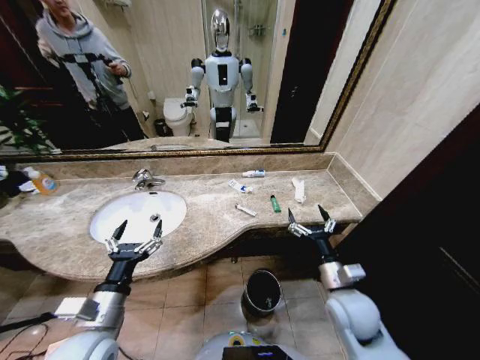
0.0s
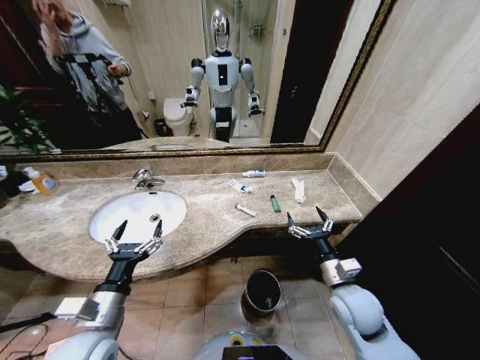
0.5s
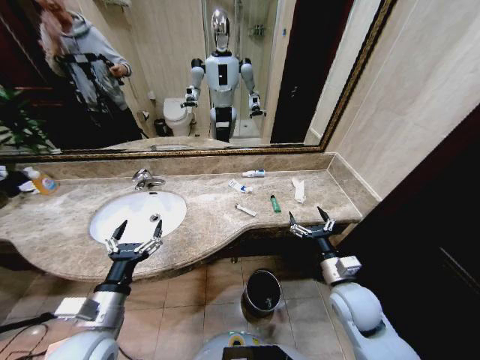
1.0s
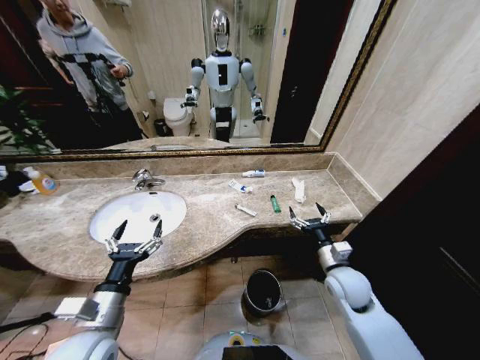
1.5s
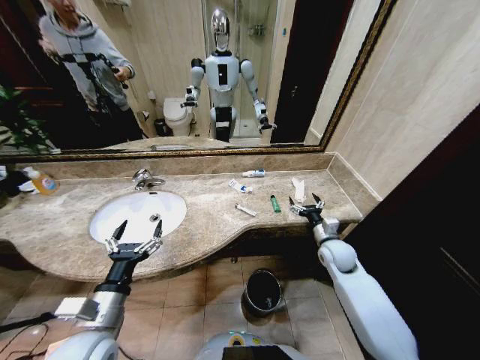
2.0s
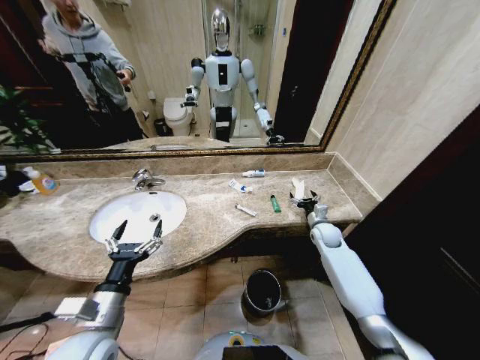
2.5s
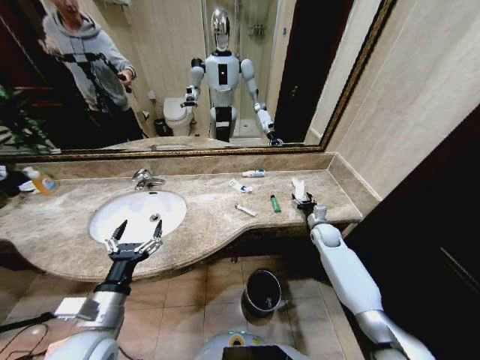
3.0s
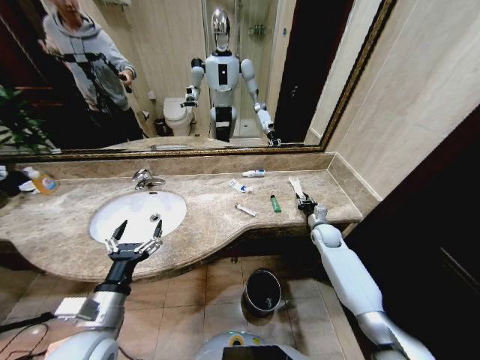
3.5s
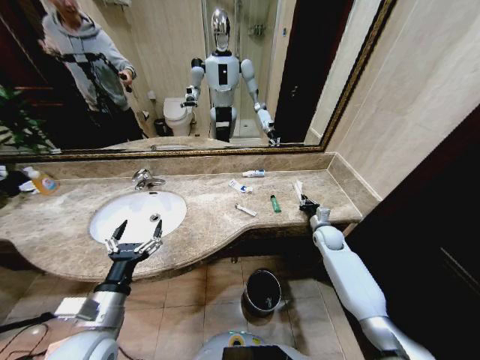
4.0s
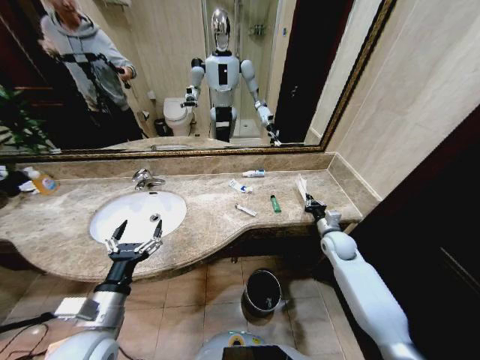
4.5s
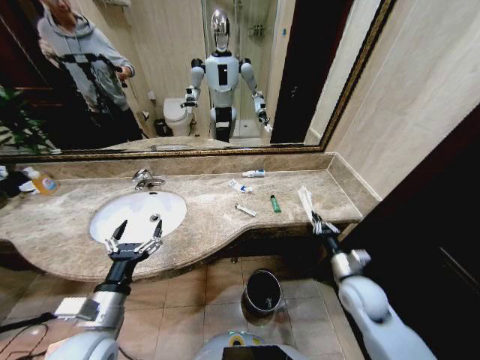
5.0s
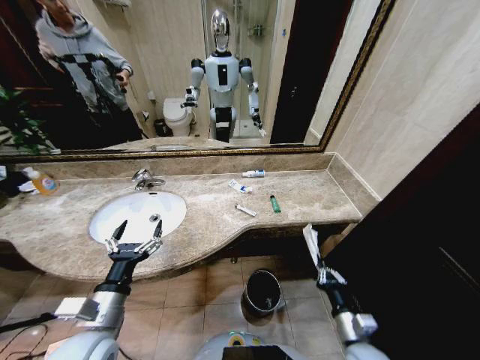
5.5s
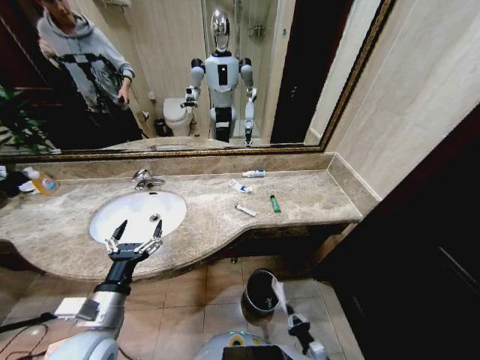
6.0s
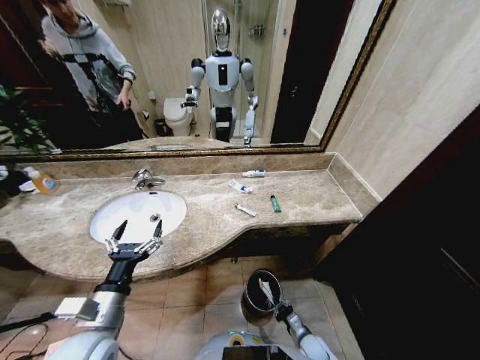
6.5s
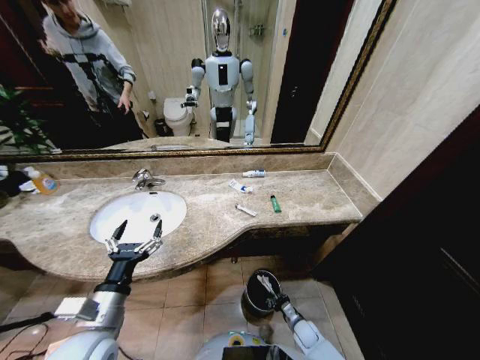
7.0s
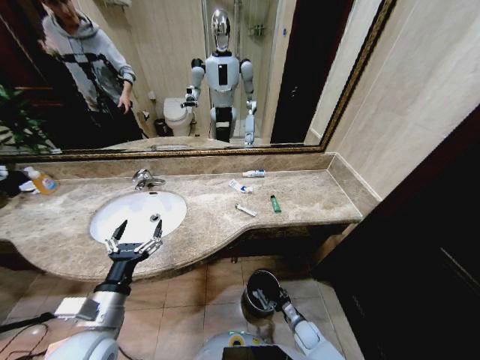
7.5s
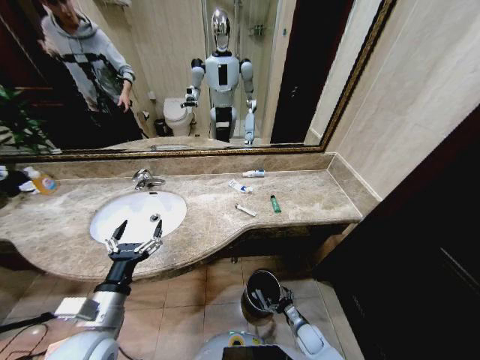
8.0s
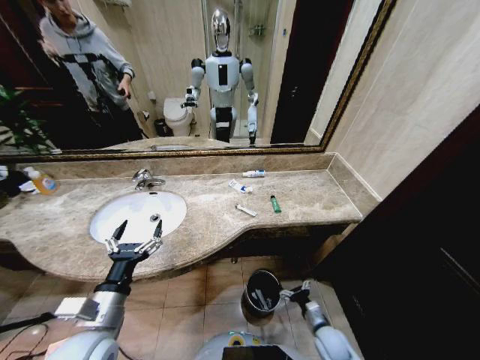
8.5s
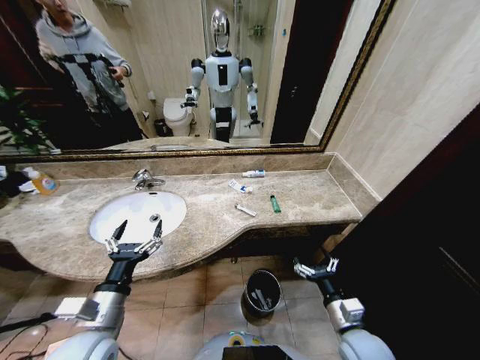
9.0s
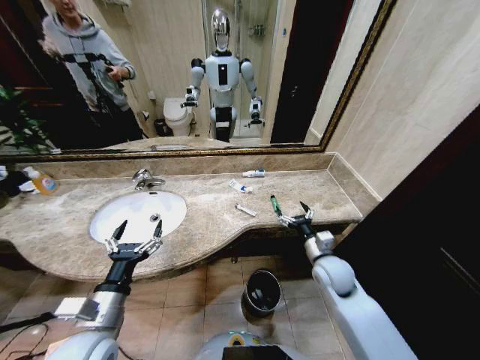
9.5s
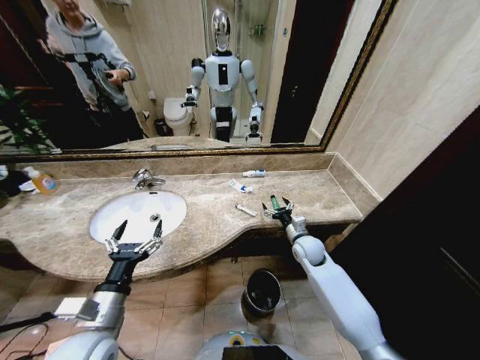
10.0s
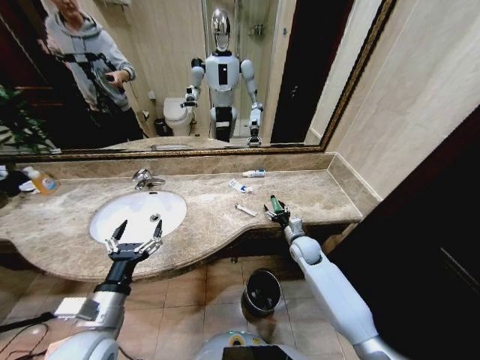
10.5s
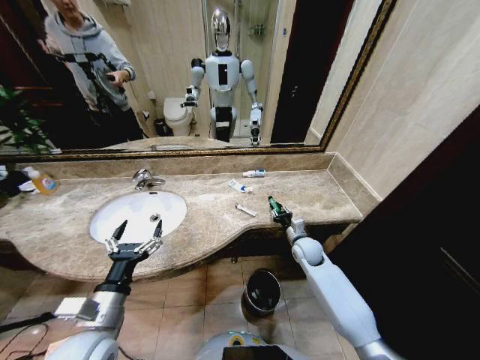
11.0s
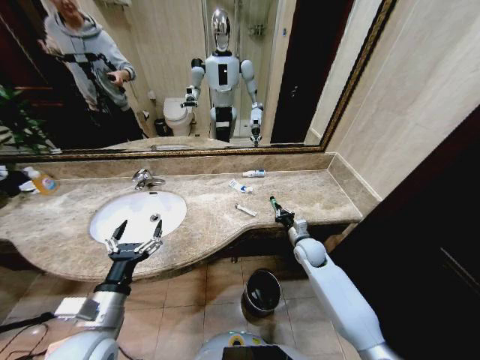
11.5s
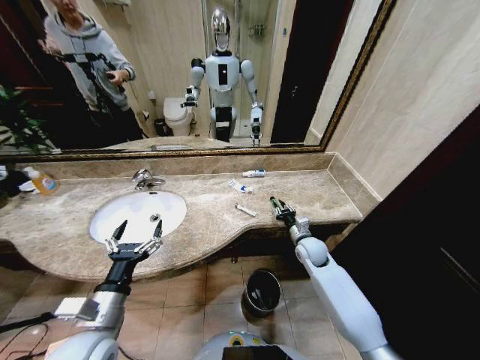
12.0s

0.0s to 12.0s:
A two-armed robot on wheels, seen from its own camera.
Task of the whole recording: Pick up the trash from the sink and place it in the trash bin.
2.0s to 4.0s: The right gripper heads forward and downward, covering about 10 cm, and closes its fingers.
4.0s to 6.0s: The right gripper is displaced backward and downward by some 40 cm.
6.0s to 8.0s: The right gripper is displaced forward and downward by approximately 15 cm, and opens up.
8.0s to 10.0s: The right gripper moves upward and forward, about 35 cm.
10.0s to 12.0s: The right gripper closes.

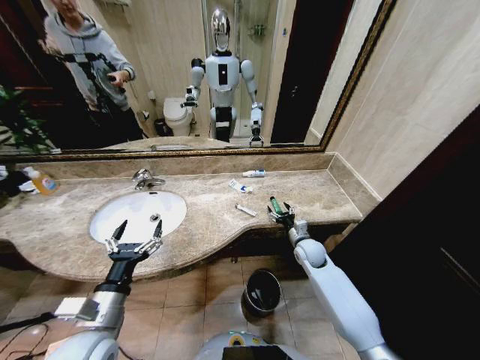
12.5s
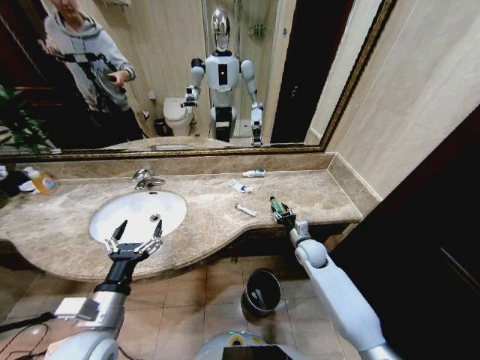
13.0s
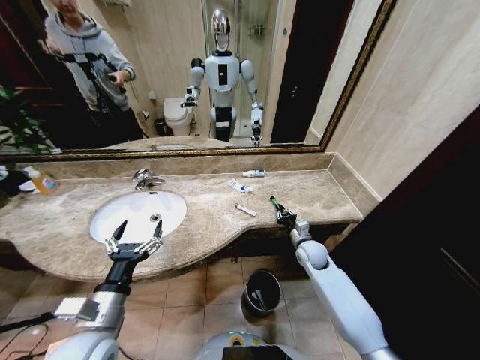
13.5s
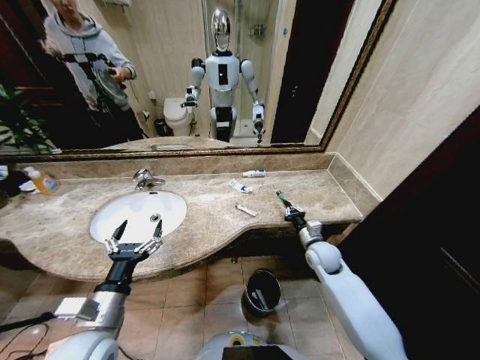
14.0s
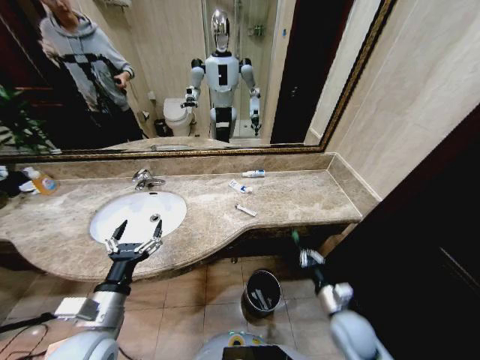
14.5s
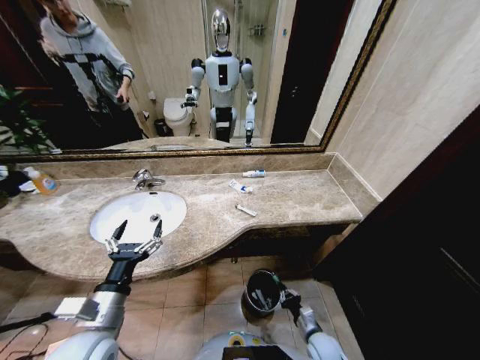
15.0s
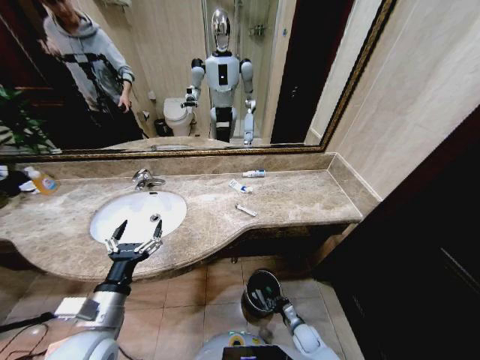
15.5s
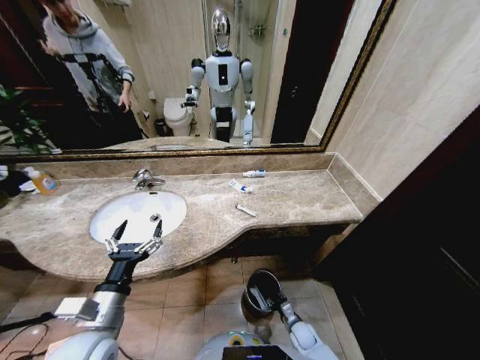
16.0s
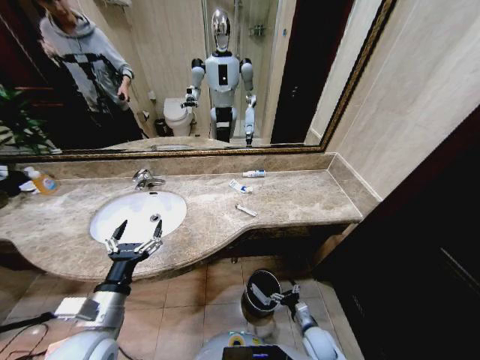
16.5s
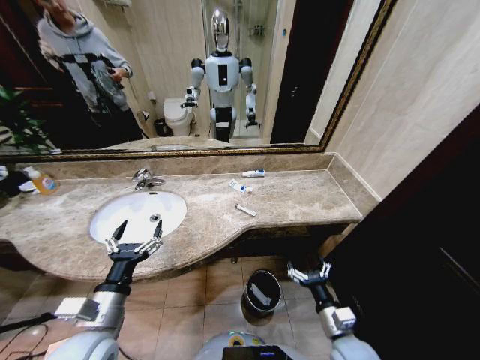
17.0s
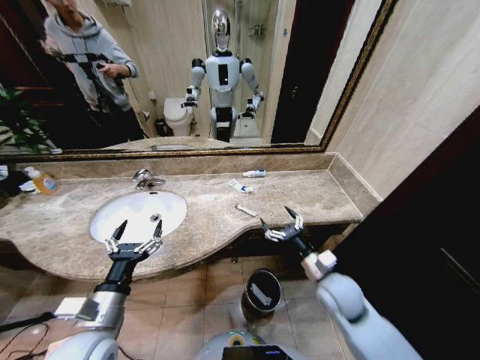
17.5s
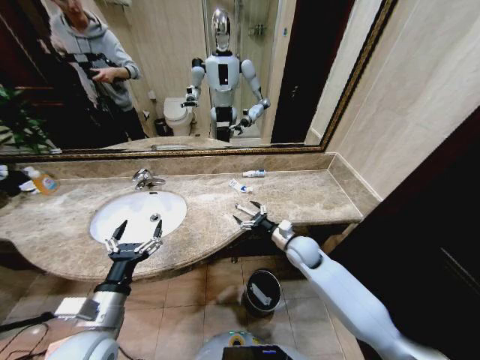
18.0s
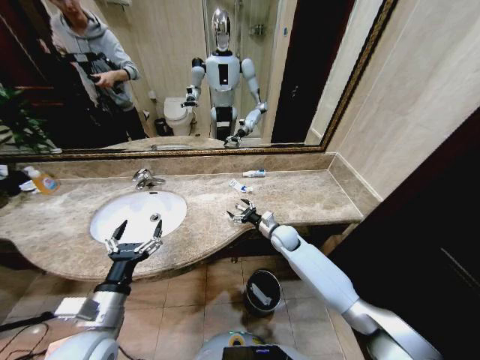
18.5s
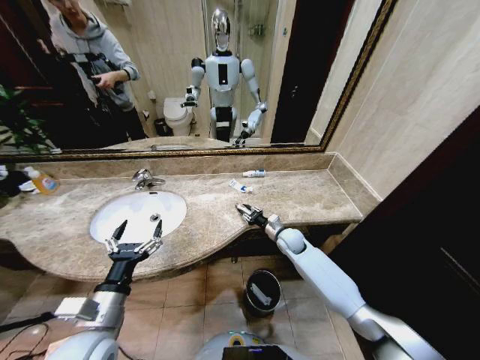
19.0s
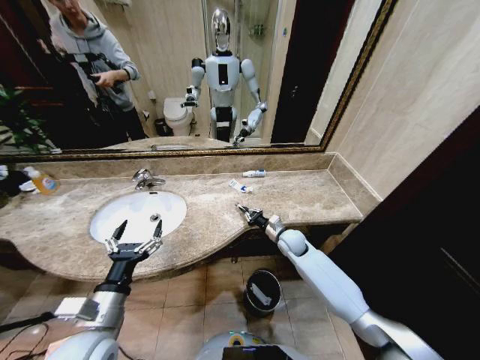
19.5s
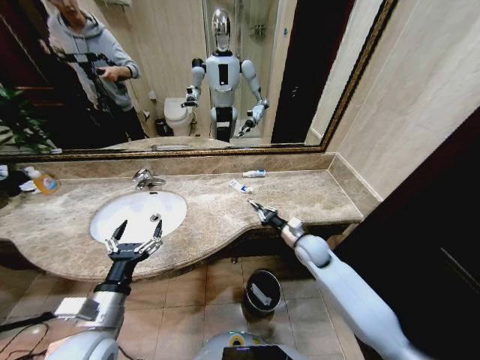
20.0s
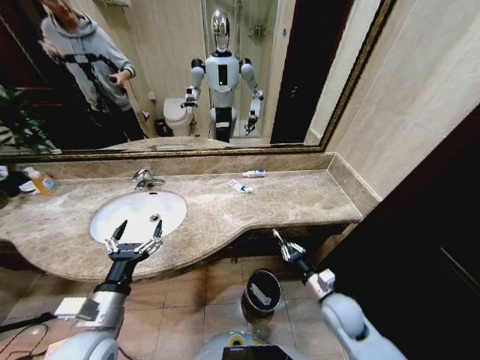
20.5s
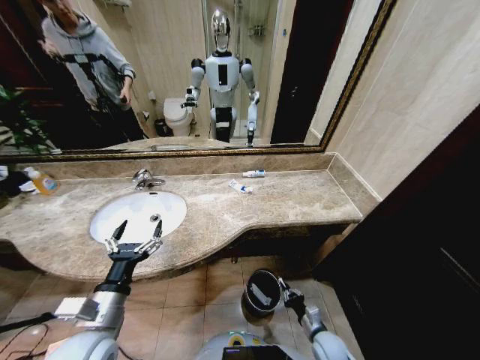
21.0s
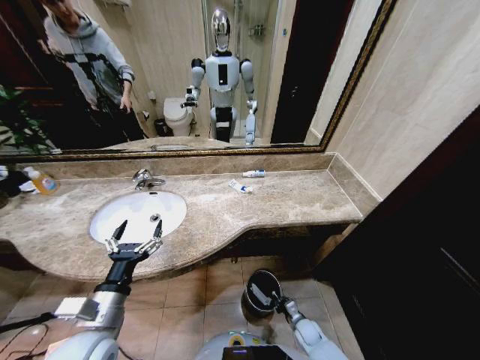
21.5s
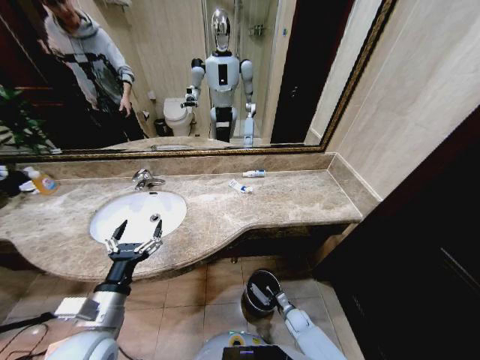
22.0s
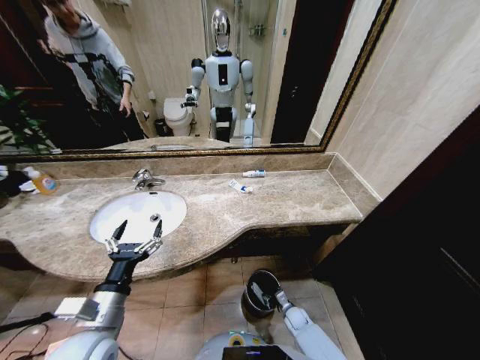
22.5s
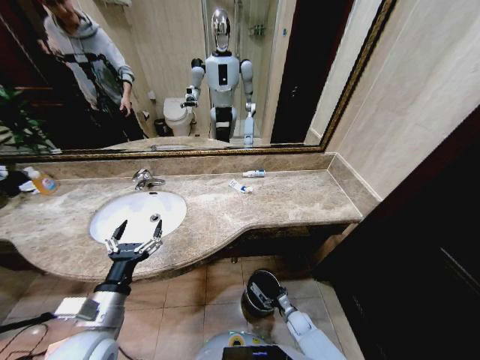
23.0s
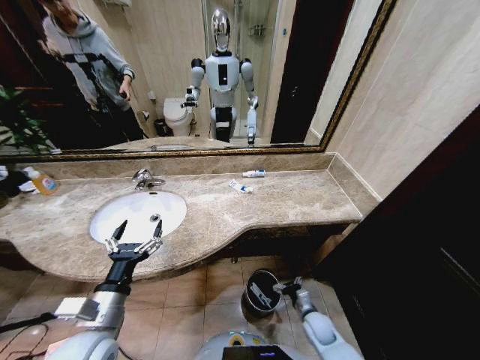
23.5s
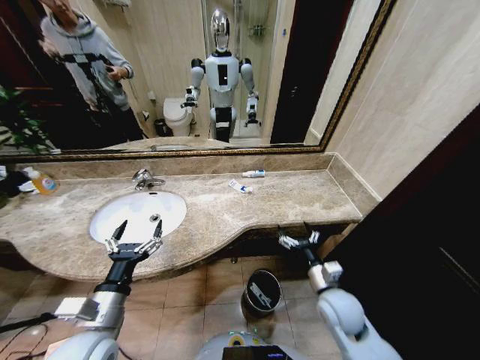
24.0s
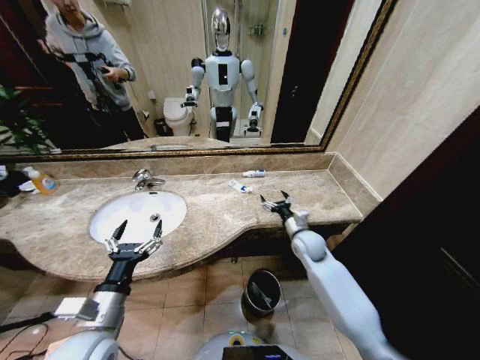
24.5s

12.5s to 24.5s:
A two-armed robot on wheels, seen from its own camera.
Task of the whole recording: Pick up the trash from the sink and place it in the trash bin.
12.5s to 14.5s: The right gripper goes roughly 20 cm backward, and closes up.
14.5s to 16.5s: The right gripper goes roughly 15 cm downward, and opens.
16.5s to 18.5s: The right gripper is displaced forward and upward by some 35 cm.
18.5s to 20.5s: The right gripper travels backward and to the right by roughly 25 cm, and closes its fingers.
20.5s to 22.5s: The right gripper moves downward, some 30 cm, and opens its fingers.
22.5s to 24.5s: The right gripper moves upward and forward, about 35 cm, and opens.

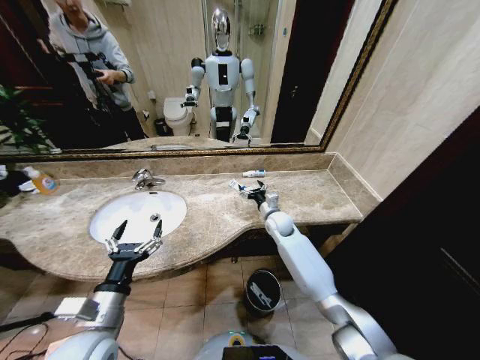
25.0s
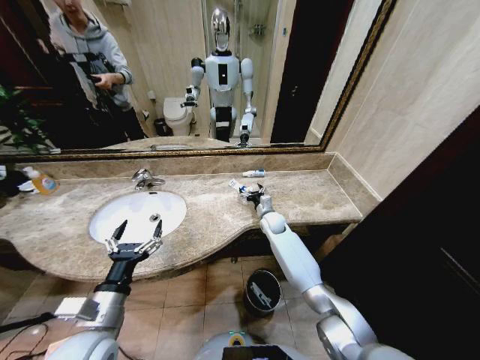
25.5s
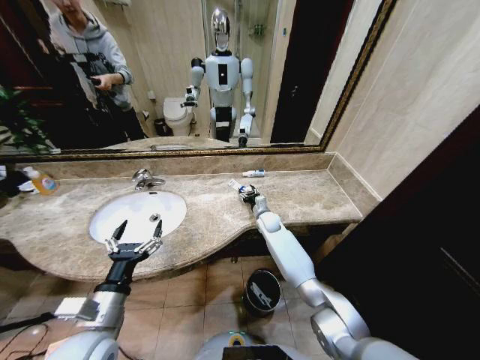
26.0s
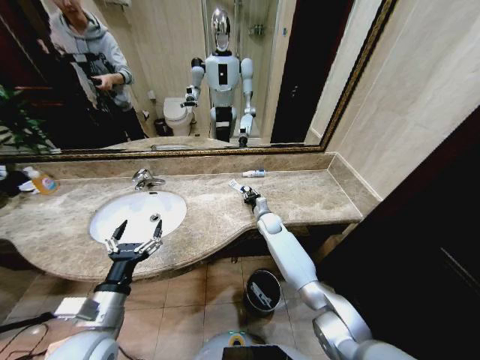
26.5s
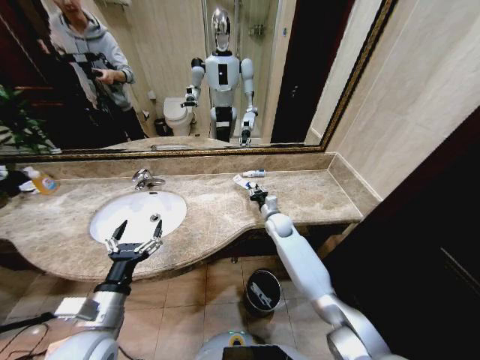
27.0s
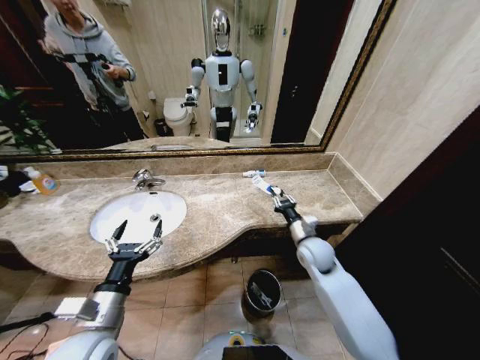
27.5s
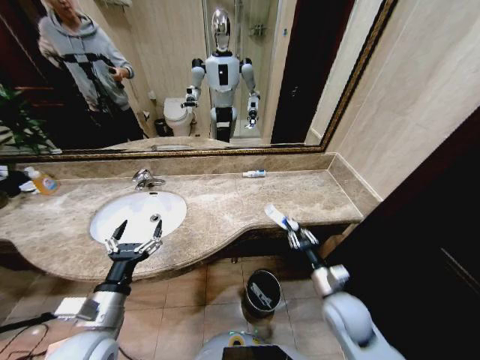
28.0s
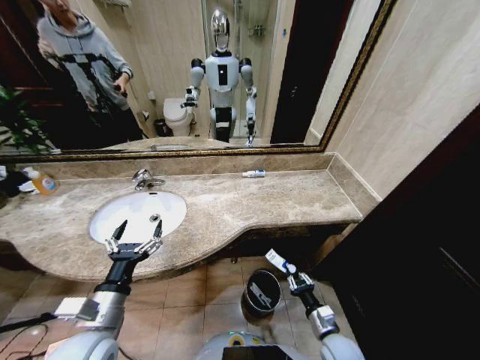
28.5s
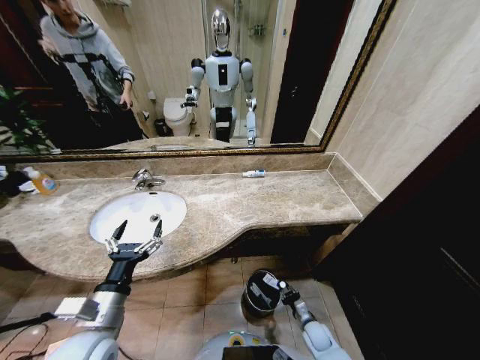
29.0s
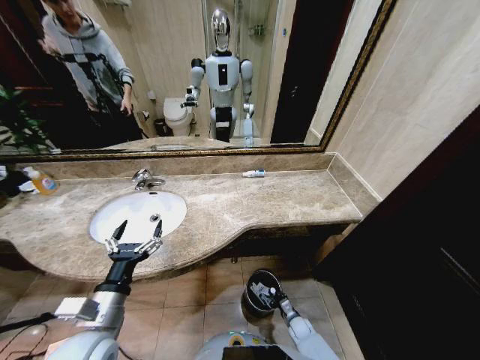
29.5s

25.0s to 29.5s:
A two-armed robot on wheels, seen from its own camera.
Task of the whole recording: Pick up the trash from the sink and place it in the trash bin.
25.0s to 27.0s: The right gripper closes.
27.0s to 29.5s: The right gripper moves downward and backward, roughly 40 cm.
